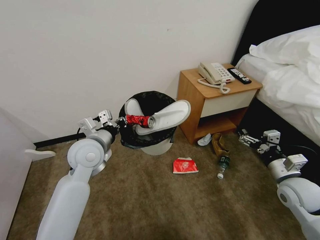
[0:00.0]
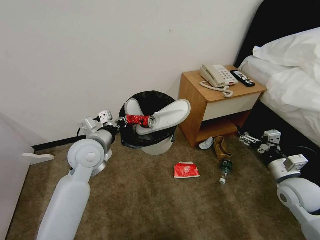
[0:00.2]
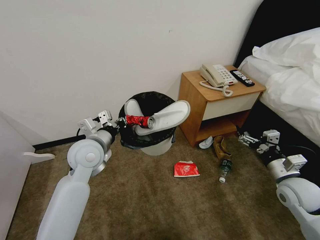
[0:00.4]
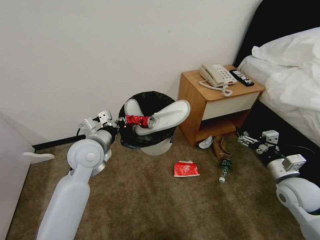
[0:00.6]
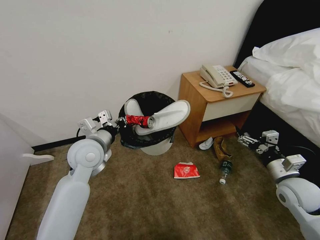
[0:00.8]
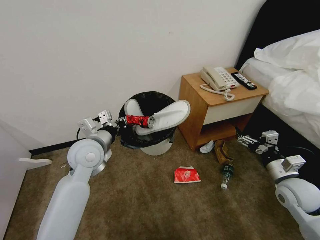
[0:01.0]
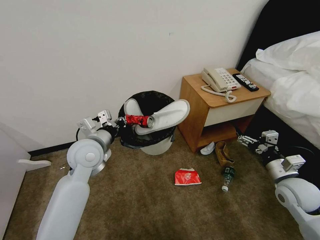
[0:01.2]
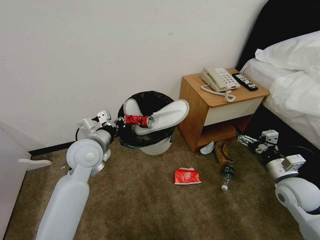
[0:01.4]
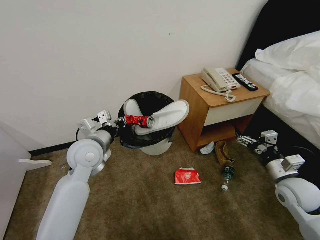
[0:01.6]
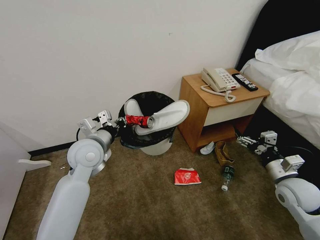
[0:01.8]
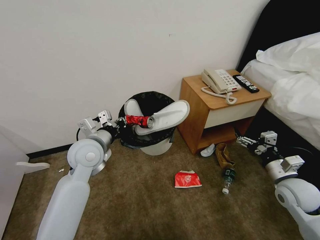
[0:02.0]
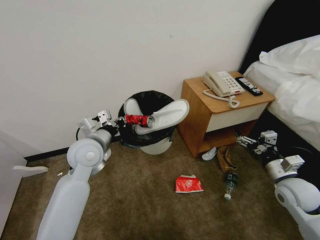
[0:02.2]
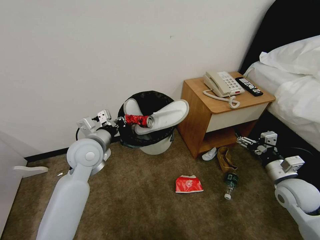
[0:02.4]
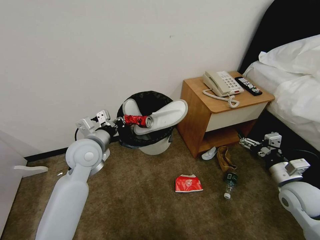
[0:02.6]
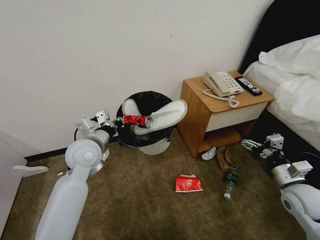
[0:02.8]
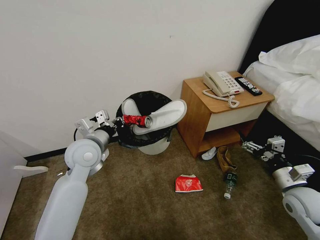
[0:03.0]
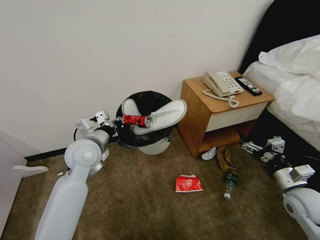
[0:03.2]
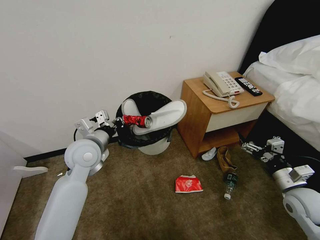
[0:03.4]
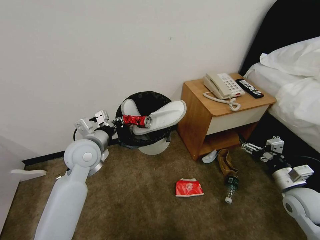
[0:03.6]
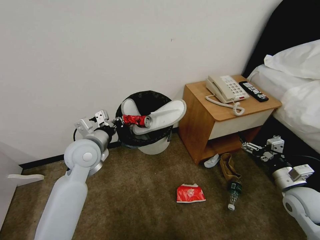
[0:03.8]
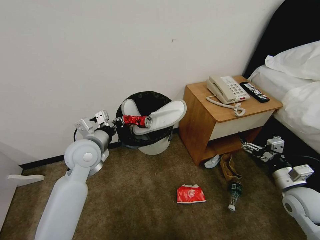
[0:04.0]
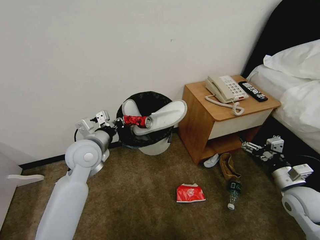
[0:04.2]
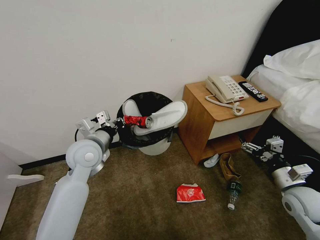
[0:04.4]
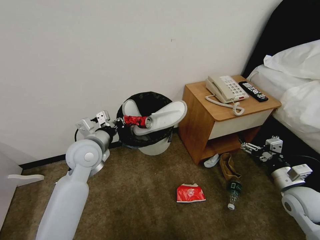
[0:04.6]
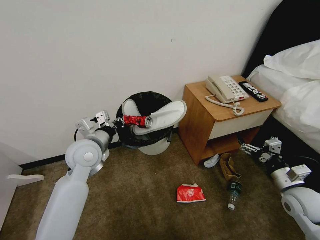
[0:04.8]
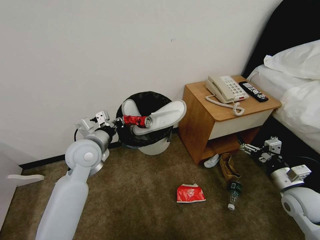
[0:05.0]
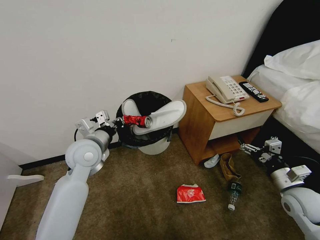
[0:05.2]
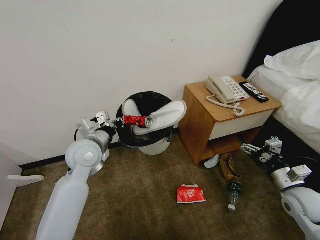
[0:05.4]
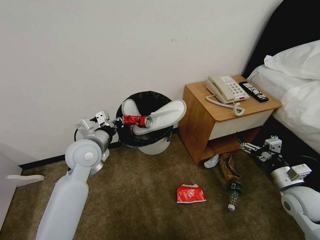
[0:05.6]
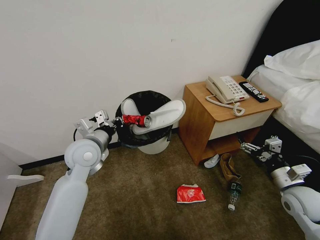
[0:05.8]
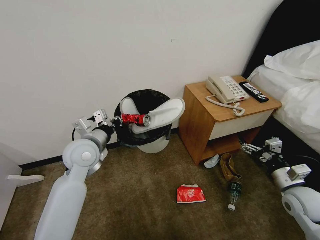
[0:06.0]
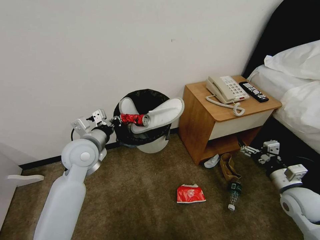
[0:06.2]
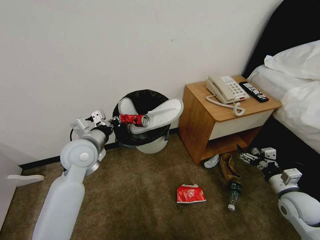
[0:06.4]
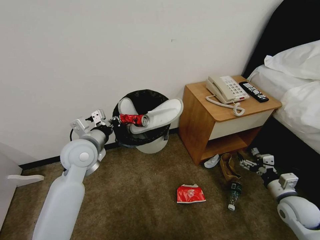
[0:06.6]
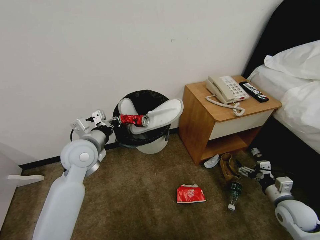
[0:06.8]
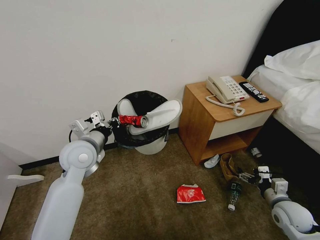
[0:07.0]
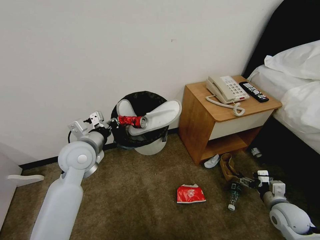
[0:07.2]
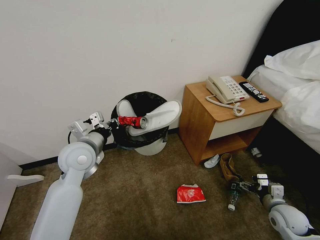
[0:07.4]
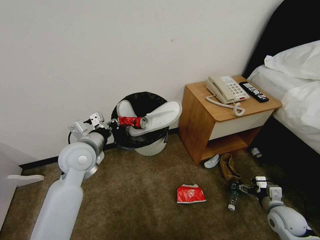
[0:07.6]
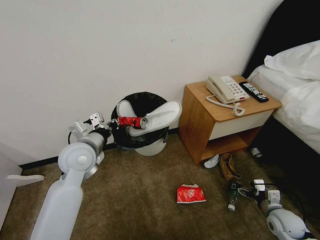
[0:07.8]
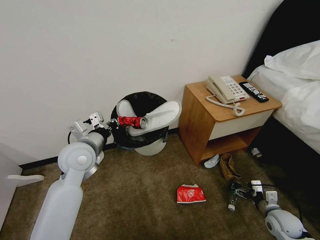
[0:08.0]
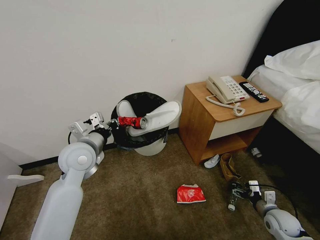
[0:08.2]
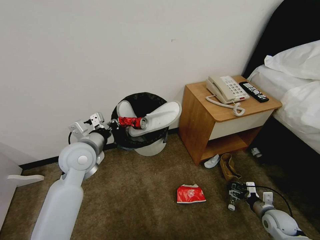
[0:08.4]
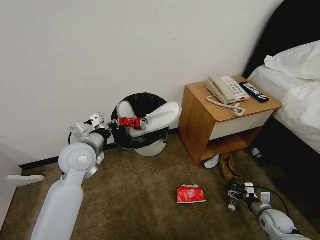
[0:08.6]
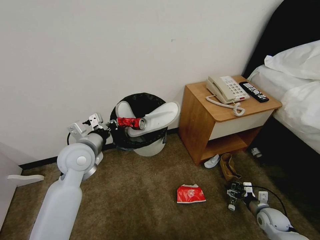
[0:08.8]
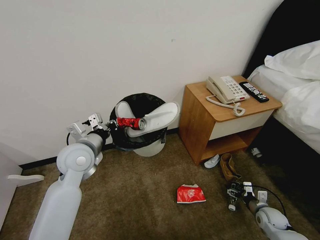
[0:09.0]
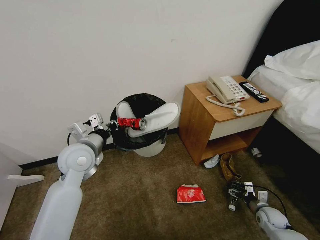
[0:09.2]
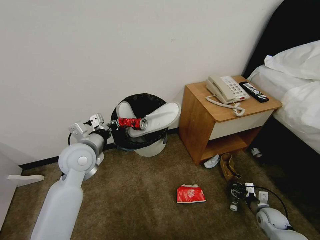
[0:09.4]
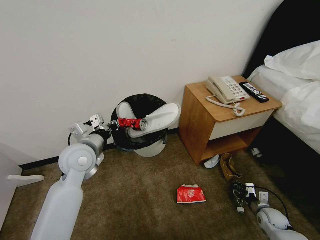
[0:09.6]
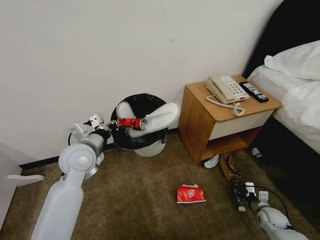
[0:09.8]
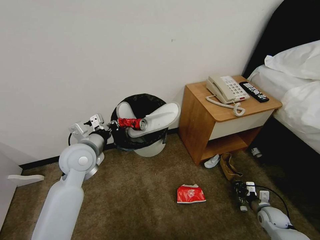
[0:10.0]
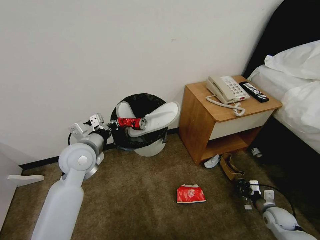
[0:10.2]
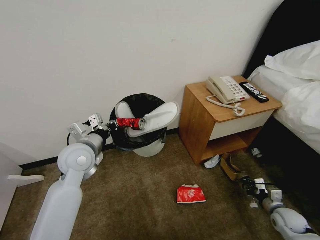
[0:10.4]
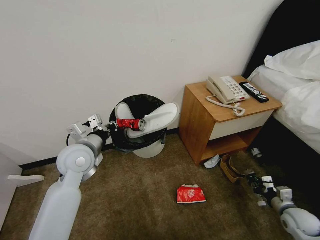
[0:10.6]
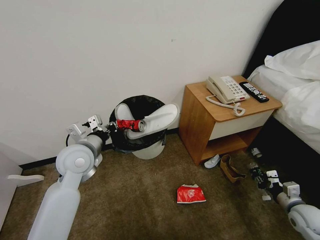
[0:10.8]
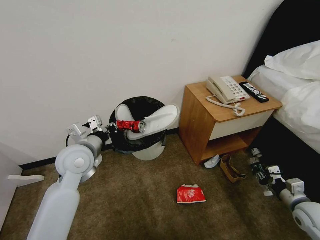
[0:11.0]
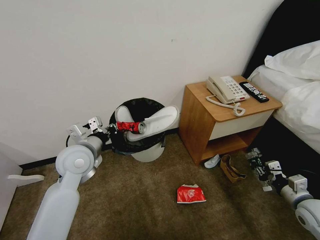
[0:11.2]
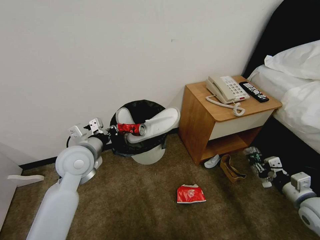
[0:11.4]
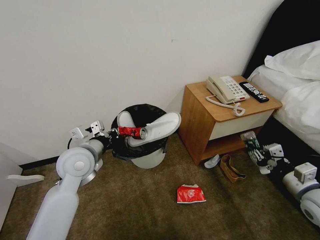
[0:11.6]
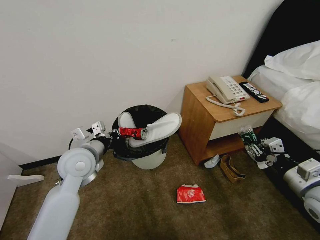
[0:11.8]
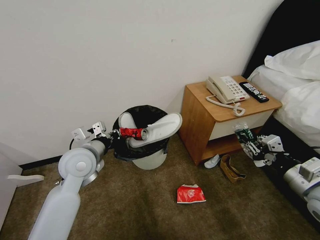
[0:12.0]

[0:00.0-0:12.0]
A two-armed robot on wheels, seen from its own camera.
Task of the whole recording: Pick up the trash bin, then pick up the garbage from the floor and place it into the trash bin.
0:00.0 to 0:01.6: Both grippers stay about where they are.
0:01.6 to 0:03.0: The grippers make only small movements.
0:03.0 to 0:04.4: Both grippers stay about where they are.
0:04.4 to 0:06.0: Both grippers stay put.
0:06.0 to 0:07.6: The right gripper goes roughly 10 cm downward.
0:07.6 to 0:09.0: The right gripper shifts roughly 10 cm downward.
0:09.0 to 0:10.4: The right gripper shifts by some 5 cm, and closes.
0:10.4 to 0:12.0: The right gripper shifts some 25 cm upward.

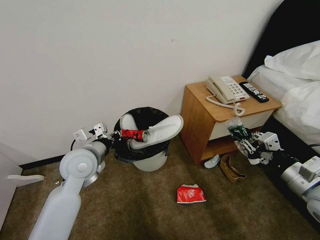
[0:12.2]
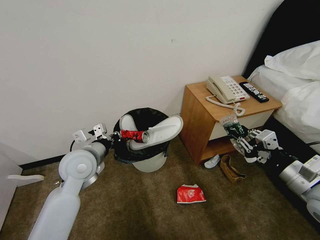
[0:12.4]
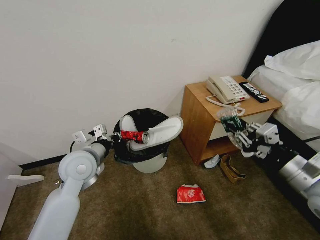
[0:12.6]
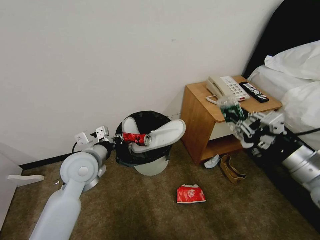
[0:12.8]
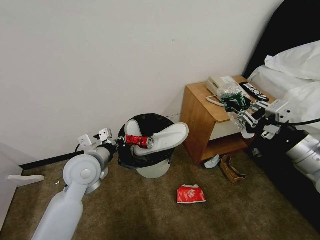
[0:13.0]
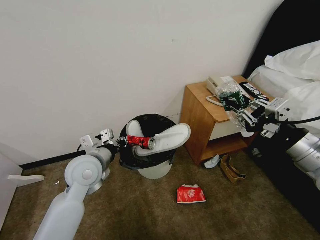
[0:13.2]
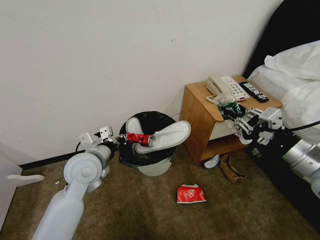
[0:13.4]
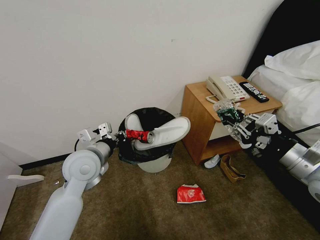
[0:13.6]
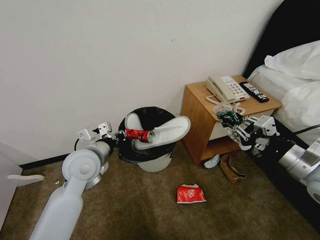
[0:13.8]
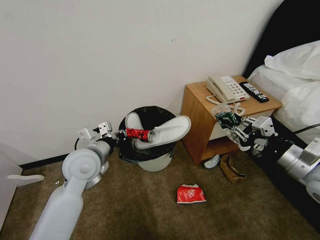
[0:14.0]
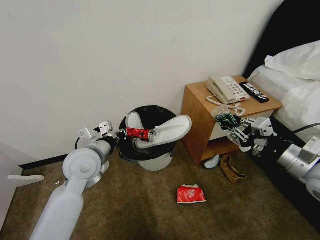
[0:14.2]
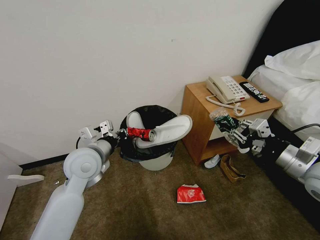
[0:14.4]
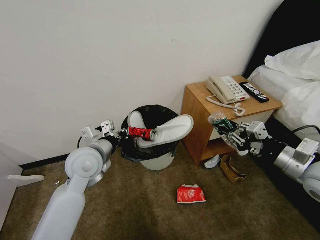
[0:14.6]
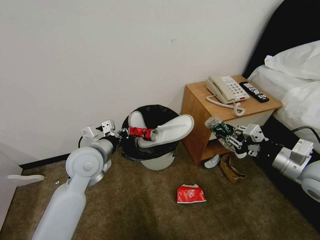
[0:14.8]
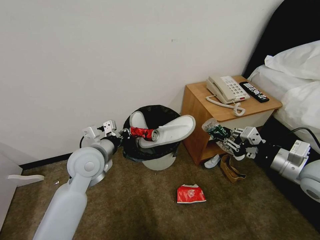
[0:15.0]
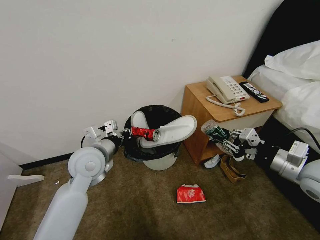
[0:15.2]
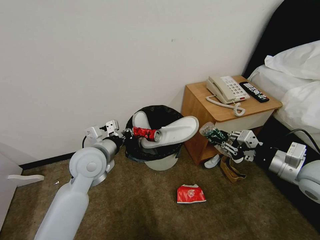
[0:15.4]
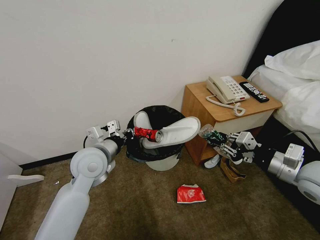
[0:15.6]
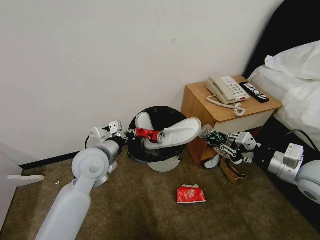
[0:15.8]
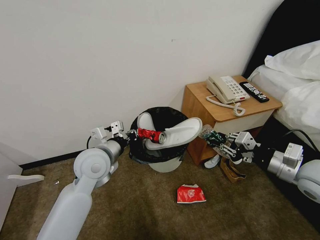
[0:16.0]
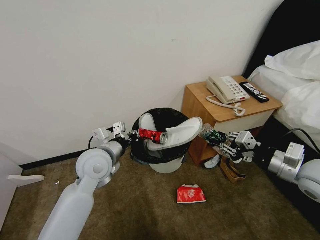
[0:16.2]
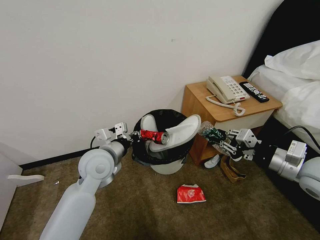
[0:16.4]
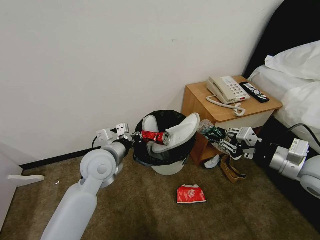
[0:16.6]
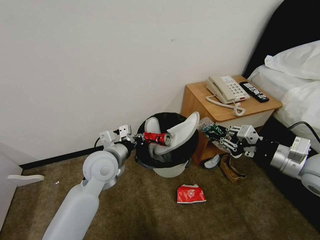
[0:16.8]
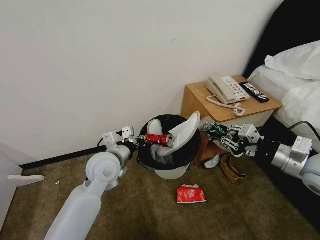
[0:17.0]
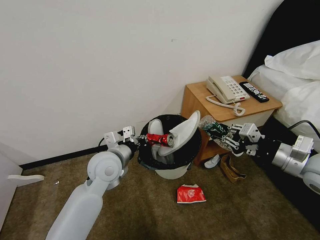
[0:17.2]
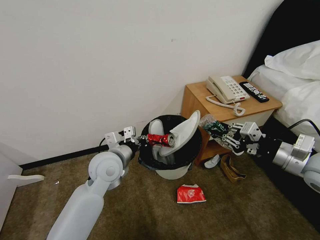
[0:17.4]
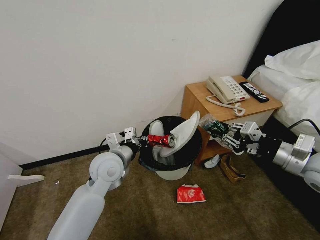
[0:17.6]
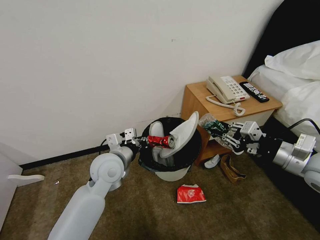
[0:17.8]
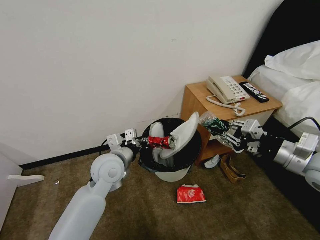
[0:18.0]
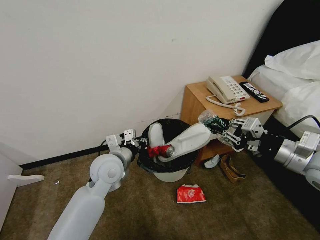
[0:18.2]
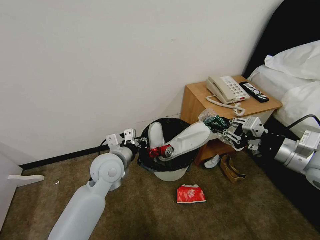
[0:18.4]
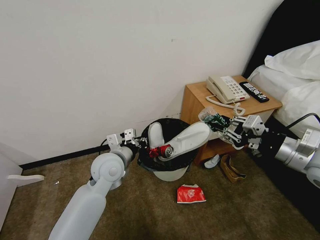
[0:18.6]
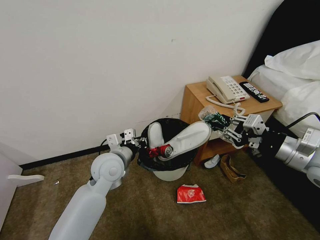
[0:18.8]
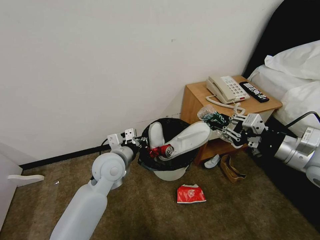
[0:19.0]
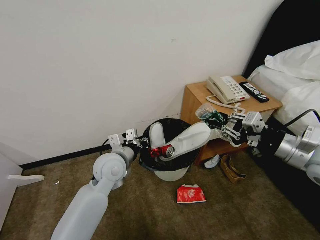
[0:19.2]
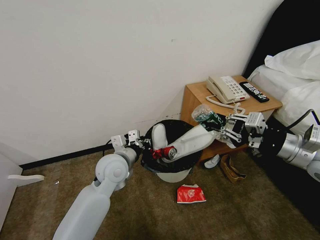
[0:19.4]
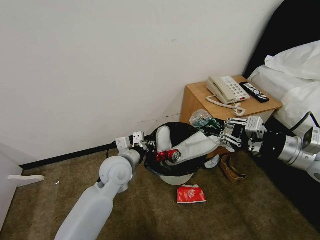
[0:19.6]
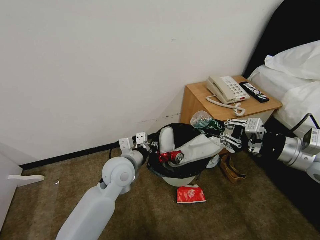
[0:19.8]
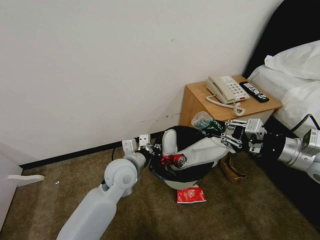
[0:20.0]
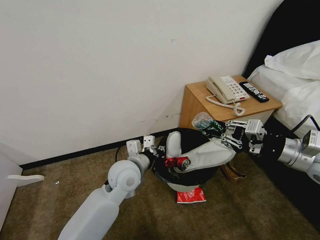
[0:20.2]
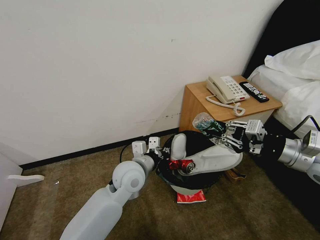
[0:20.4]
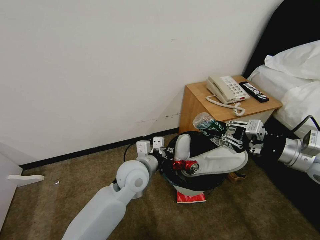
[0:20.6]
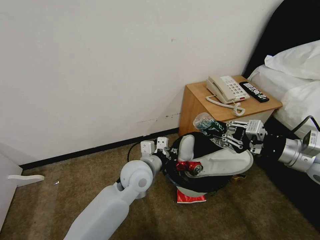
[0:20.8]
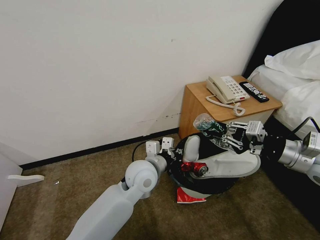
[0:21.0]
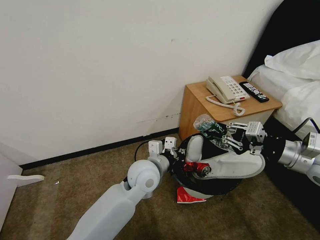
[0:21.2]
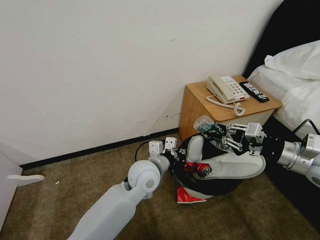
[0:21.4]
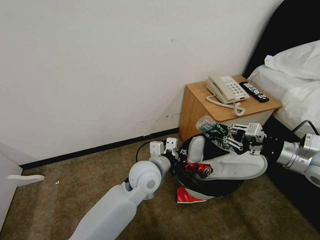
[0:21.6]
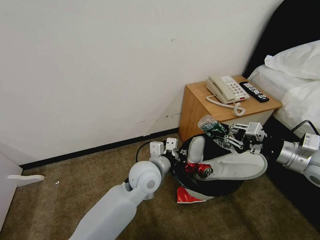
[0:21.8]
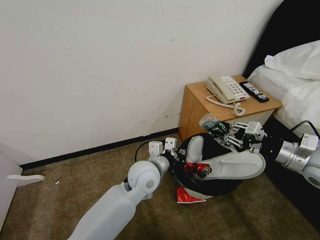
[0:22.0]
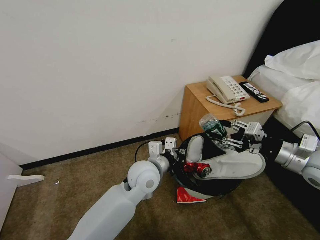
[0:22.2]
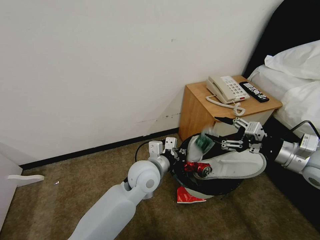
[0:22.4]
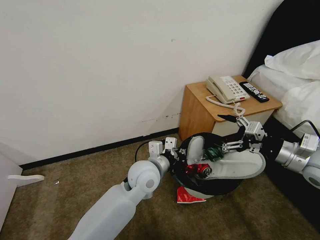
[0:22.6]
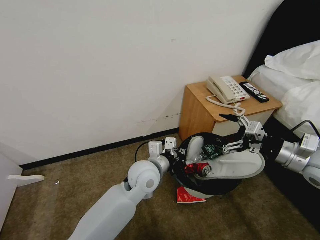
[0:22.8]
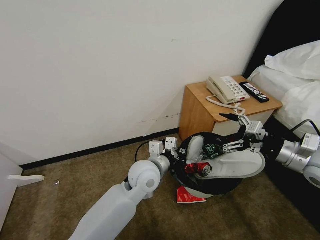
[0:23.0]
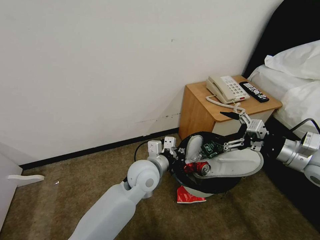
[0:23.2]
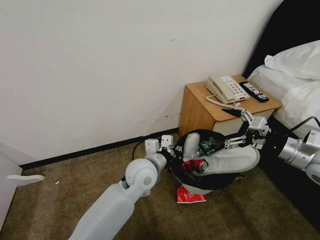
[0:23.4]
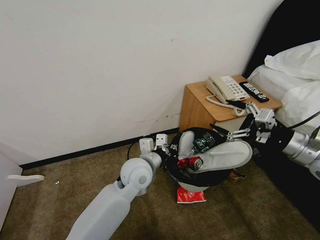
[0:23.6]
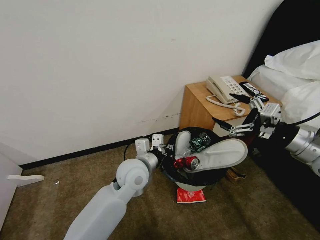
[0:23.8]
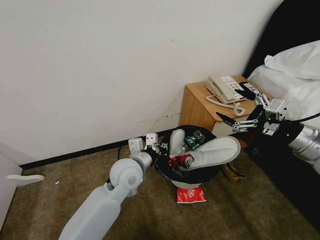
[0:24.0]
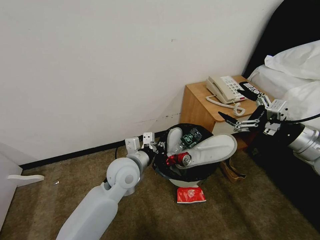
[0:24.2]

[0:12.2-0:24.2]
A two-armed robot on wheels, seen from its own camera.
Task of the whole recording: Pick up the trash bin, then pick up the garbage from the floor and place it into the trash bin.
0:13.8 to 0:16.6: The grippers make only small movements.
0:16.6 to 0:18.2: The grippers stay close to where they were, moving slightly.
0:18.2 to 0:19.8: The grippers move only a little.
0:19.8 to 0:21.2: The left gripper is displaced to the right by approximately 10 cm.
0:21.2 to 0:22.6: The right gripper opens its fingers.
0:22.6 to 0:24.2: The left gripper heads to the left, covering some 5 cm.
